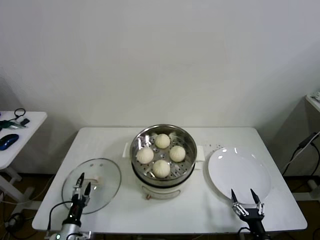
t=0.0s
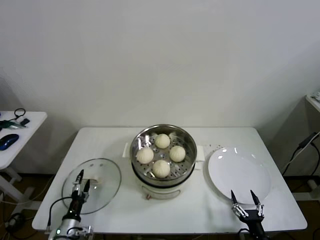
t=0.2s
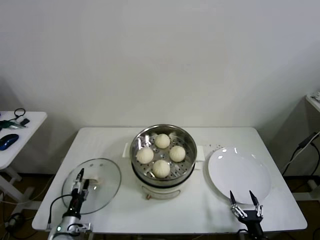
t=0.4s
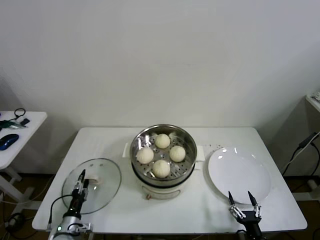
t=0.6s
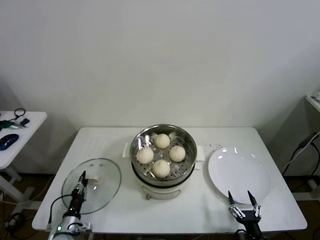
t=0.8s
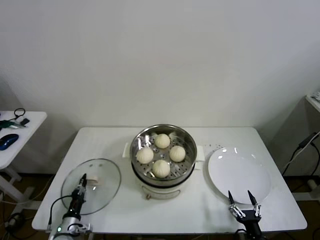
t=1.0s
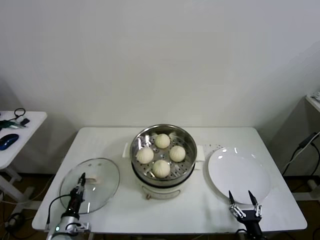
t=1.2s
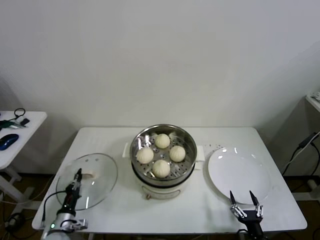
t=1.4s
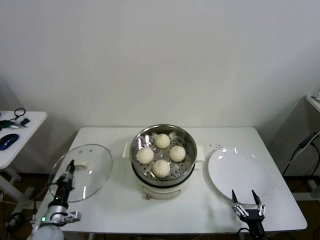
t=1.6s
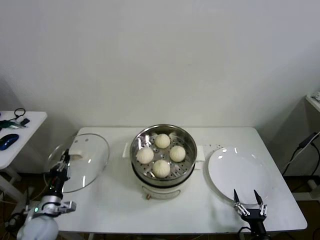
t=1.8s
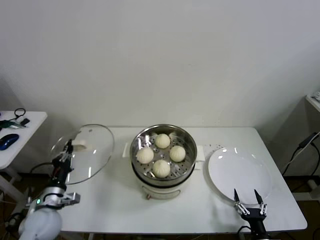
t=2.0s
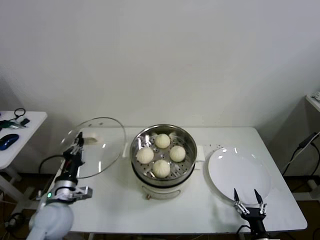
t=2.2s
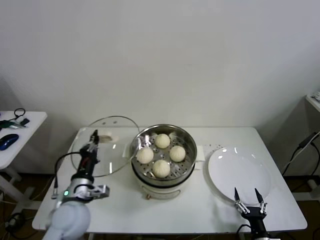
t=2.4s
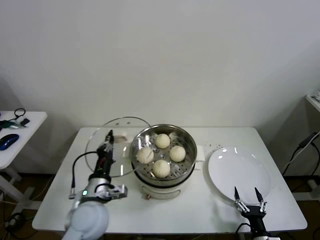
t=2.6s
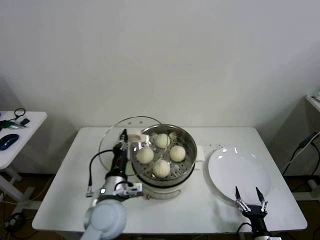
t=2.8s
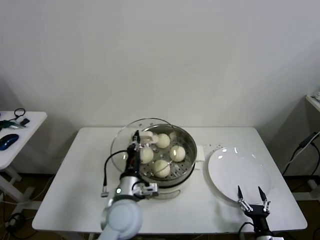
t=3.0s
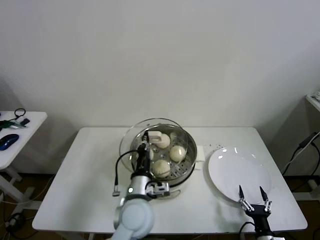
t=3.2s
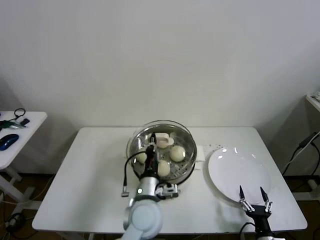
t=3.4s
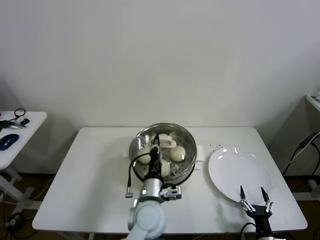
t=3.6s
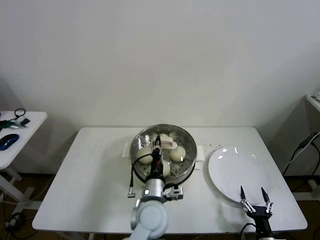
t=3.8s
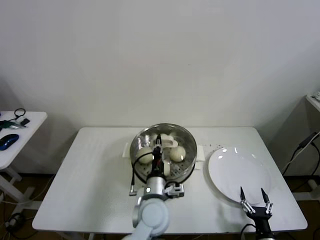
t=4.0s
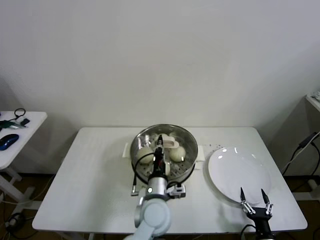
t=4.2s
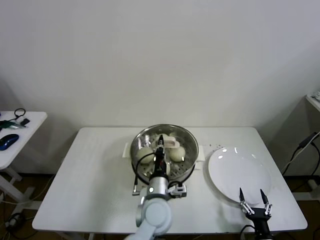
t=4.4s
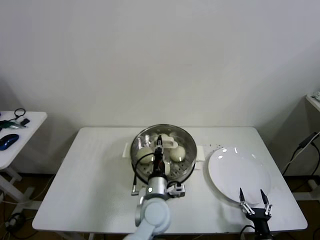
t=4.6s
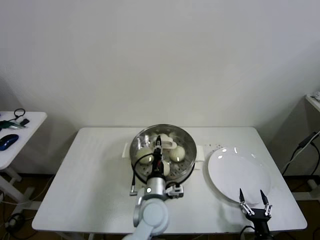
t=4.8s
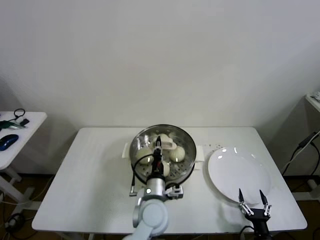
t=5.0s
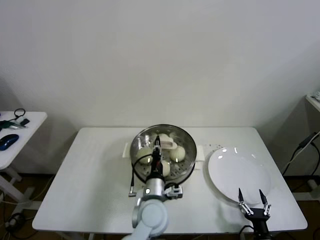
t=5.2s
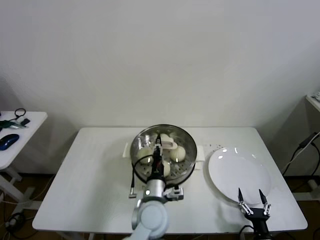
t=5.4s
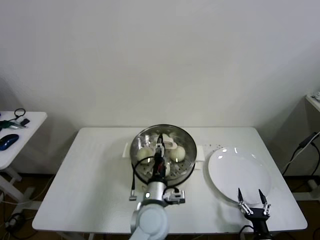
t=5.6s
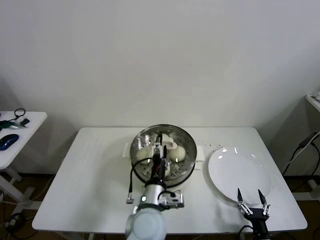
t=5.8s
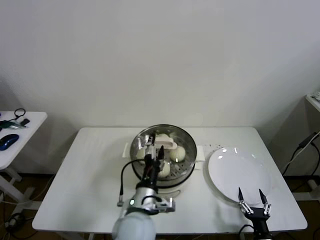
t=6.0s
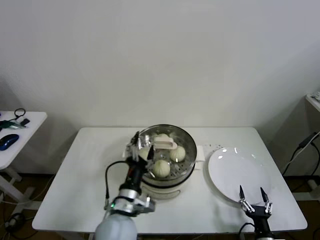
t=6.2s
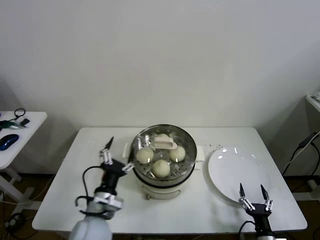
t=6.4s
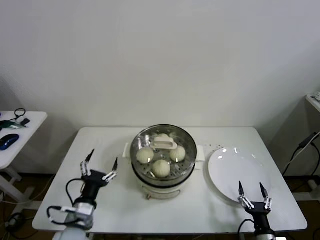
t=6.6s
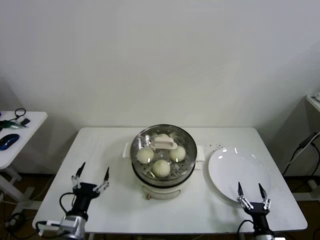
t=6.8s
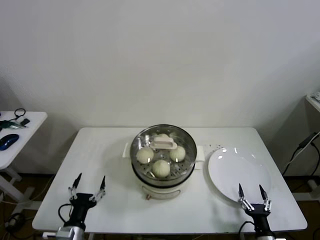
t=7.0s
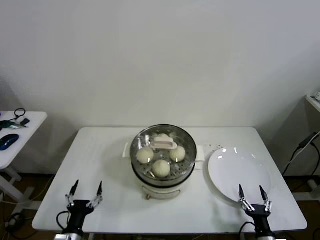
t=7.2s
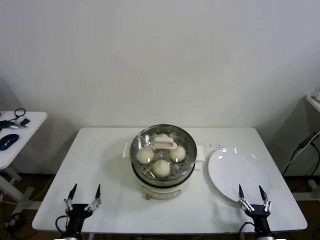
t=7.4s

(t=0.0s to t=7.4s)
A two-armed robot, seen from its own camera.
Step, t=1.2s - t=5.2s: Place the pot lid on the steamer with left gripper.
t=0.0s - t=1.4s: The left gripper closes.
t=1.4s - t=3.0s: The left gripper travels to the right and upward by roughly 35 cm.
t=3.0s - t=4.4s: The left gripper is displaced to the right by approximately 10 cm.
t=4.4s - t=6.0s: The left gripper shifts by some 5 cm, and opens its fingers.
t=6.0s - t=7.4s: The left gripper heads to the left, downward and backward, covering some 30 cm.

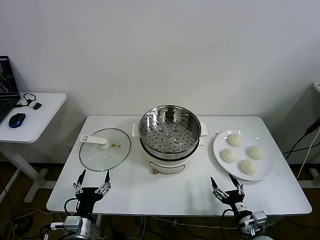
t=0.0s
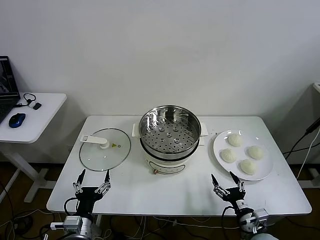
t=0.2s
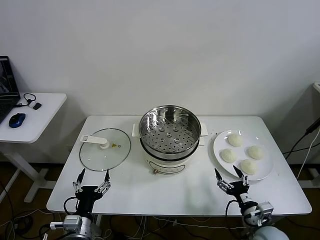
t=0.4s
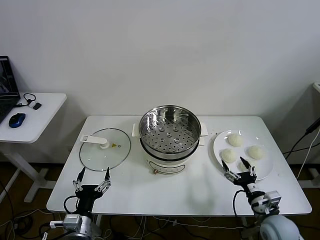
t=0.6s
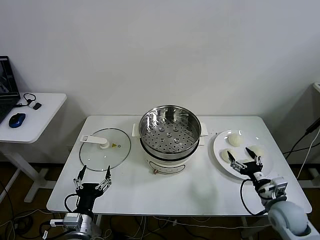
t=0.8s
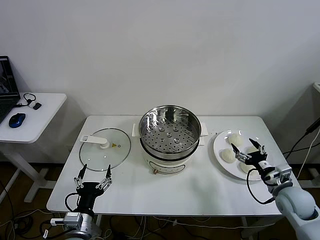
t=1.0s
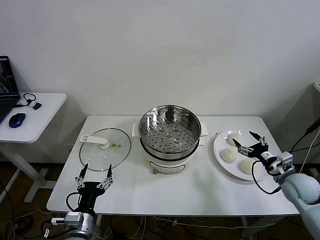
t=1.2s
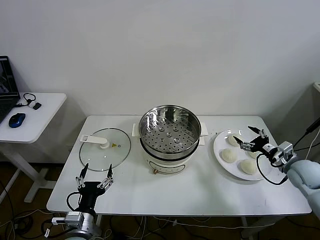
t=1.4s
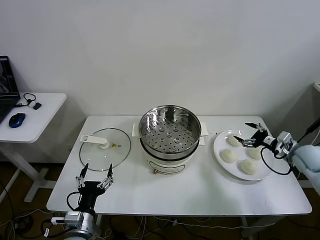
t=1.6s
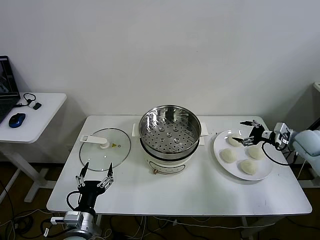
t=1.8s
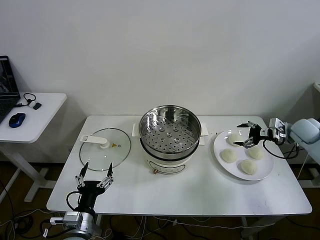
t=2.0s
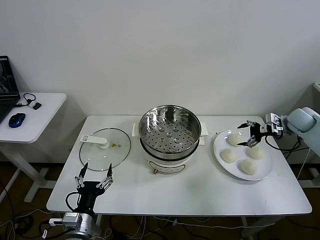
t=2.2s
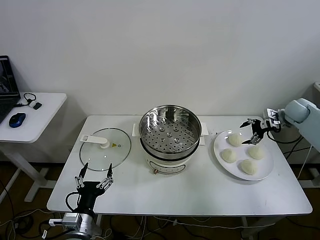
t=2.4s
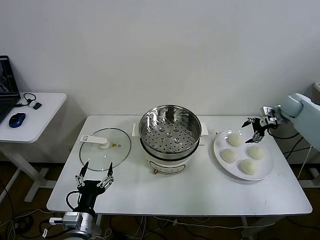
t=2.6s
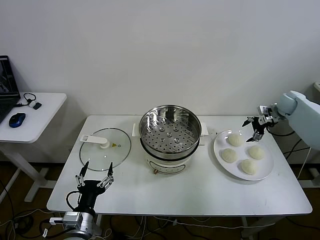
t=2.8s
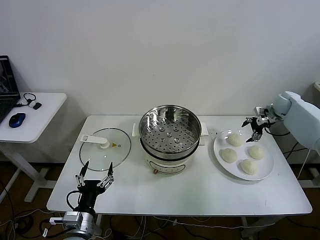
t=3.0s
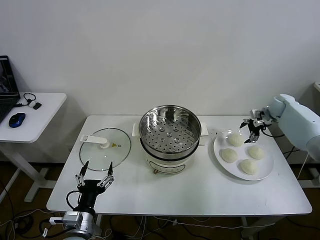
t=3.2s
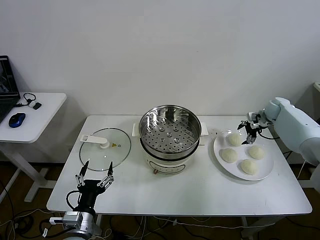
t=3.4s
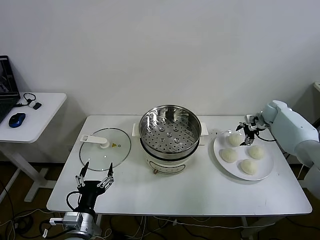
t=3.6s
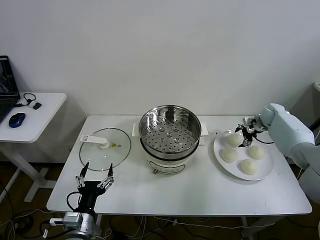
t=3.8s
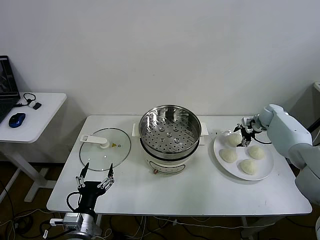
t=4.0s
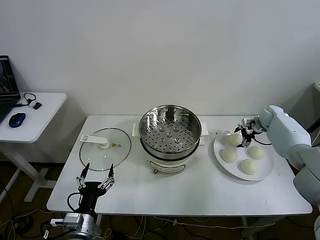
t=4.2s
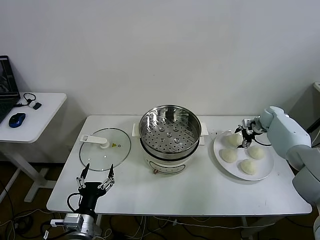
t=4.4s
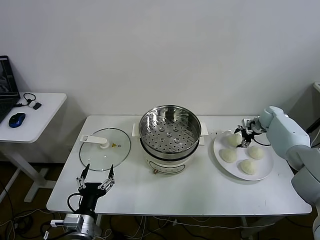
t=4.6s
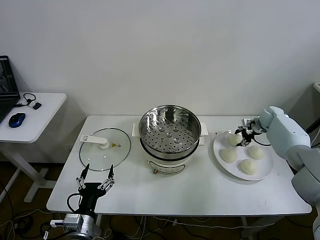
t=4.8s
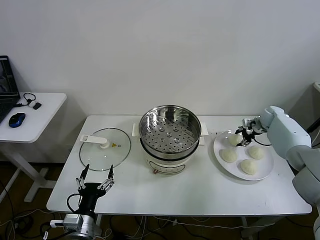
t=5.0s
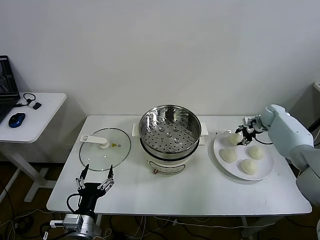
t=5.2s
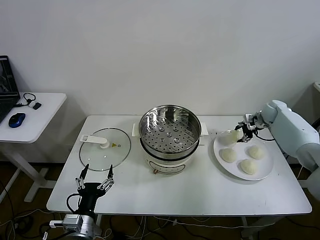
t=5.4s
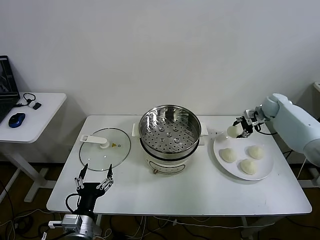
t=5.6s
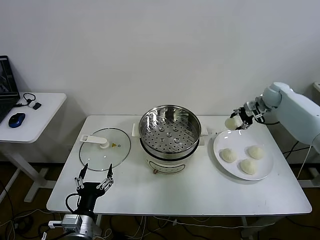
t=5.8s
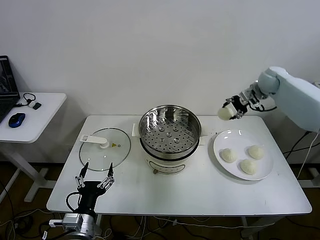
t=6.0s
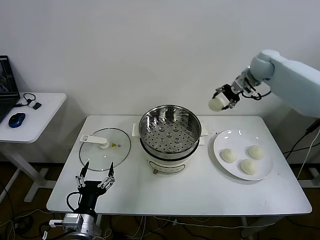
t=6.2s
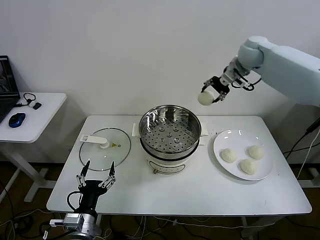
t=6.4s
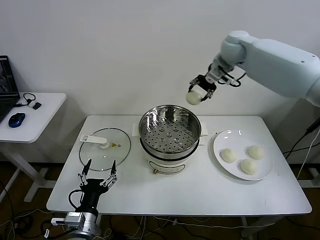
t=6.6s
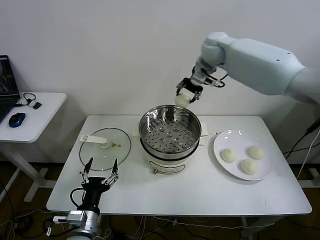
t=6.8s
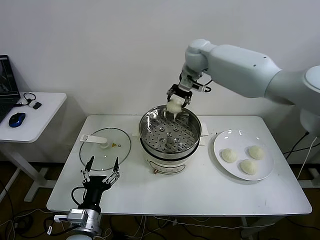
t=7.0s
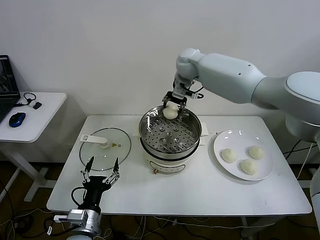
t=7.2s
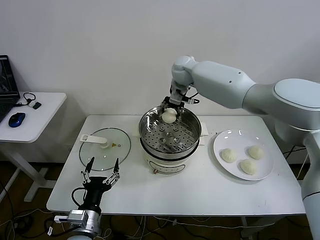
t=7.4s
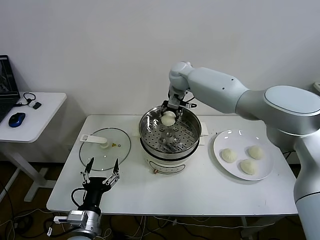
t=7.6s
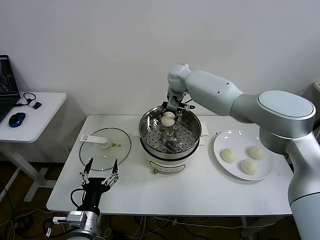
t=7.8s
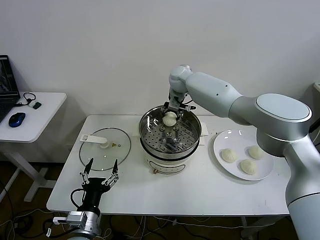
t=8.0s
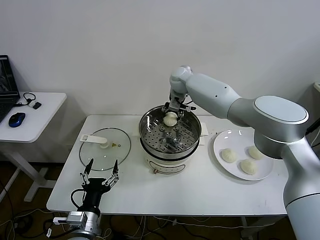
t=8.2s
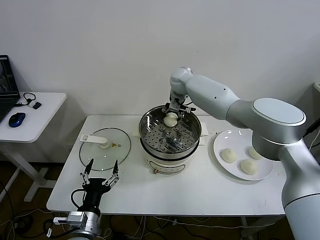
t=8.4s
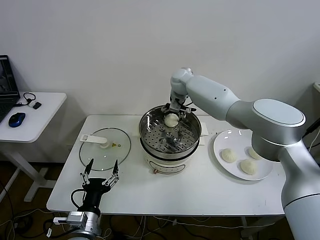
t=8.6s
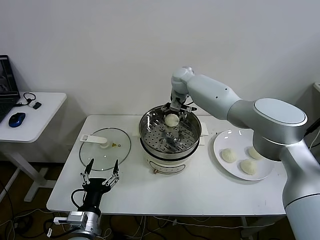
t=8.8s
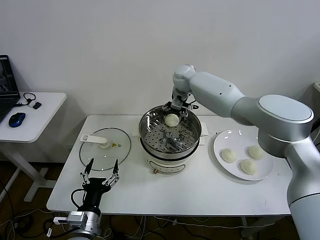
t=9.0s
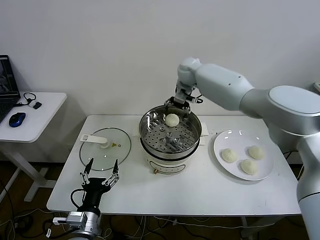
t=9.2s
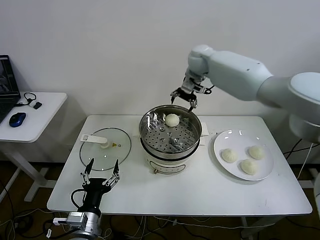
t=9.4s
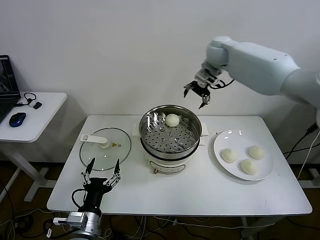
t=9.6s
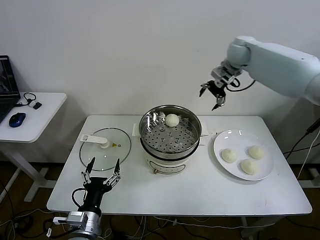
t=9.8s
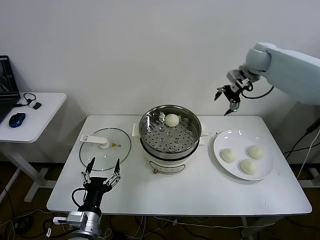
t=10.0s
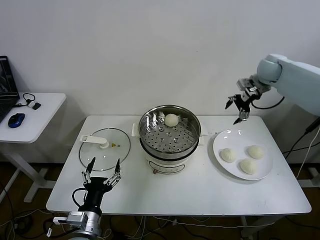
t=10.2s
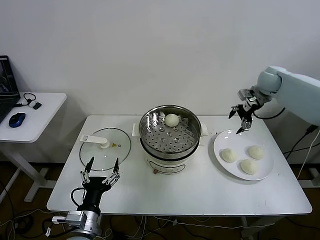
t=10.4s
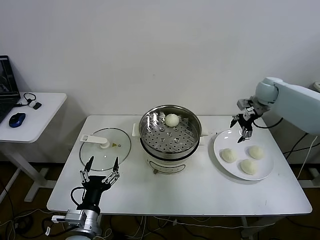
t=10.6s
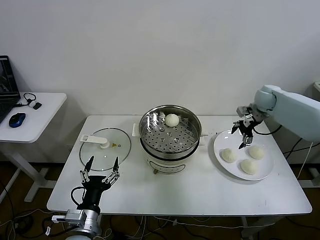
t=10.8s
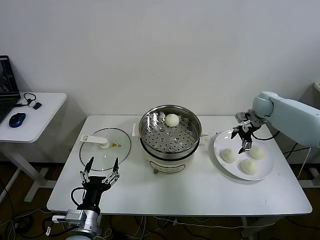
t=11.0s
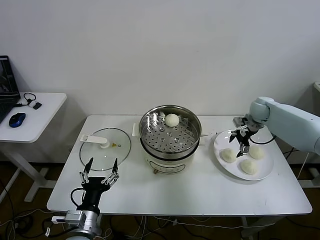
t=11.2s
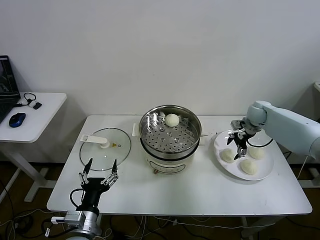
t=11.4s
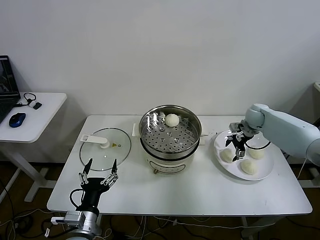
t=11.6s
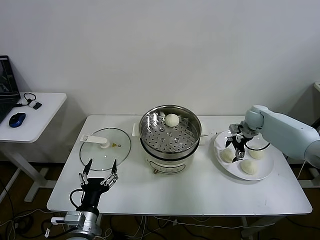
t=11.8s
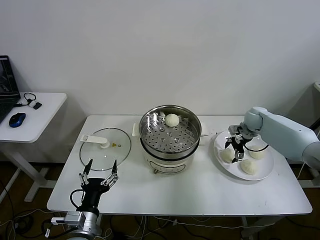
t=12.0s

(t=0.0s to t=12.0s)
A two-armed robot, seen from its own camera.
Step, t=0.0s - t=4.6s: Grasp the baozi in the plate with right gripper.
Step, t=4.8s - t=9.0s: Place the baozi on the steamer with right gripper.
t=1.6s - t=3.0s: The right gripper goes about 20 cm forward.
t=3.0s - t=4.4s: The right gripper moves downward, about 5 cm.
t=4.4s - t=6.0s: The right gripper moves upward and to the left, roughly 25 cm, and closes up.
t=6.0s - t=7.6s: The right gripper travels to the left by roughly 30 cm.
t=7.6s - t=9.0s: The right gripper opens up.
t=9.0s - t=10.4s: The right gripper moves to the right, some 30 cm.
t=10.4s - t=12.0s: The right gripper travels downward by roughly 15 cm.

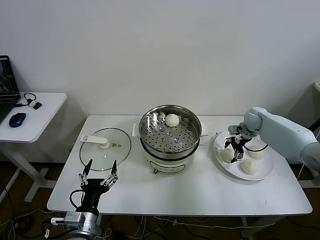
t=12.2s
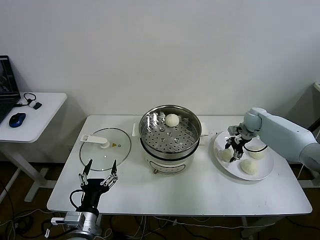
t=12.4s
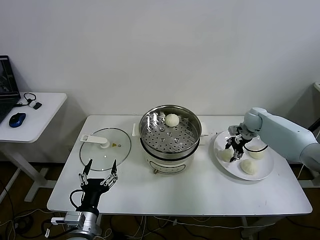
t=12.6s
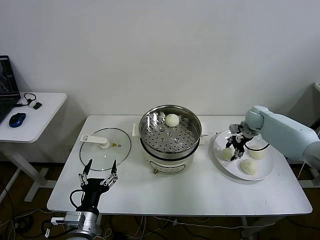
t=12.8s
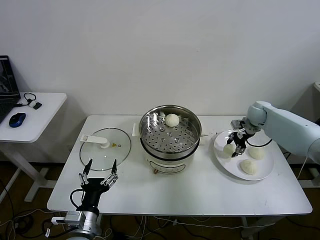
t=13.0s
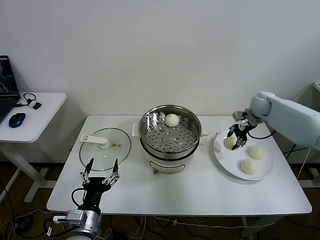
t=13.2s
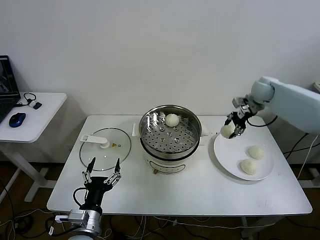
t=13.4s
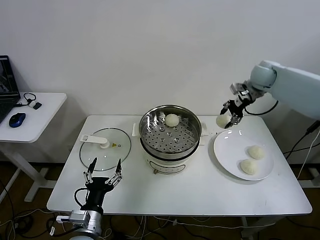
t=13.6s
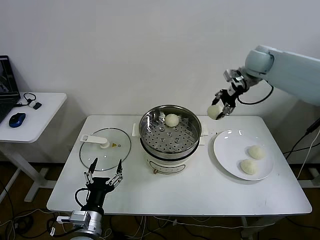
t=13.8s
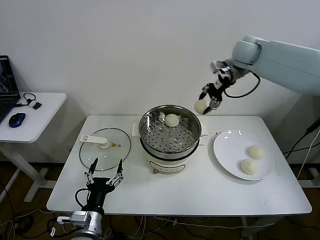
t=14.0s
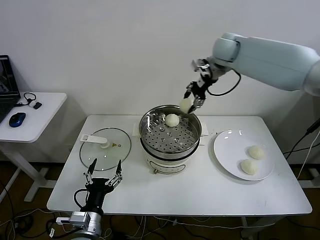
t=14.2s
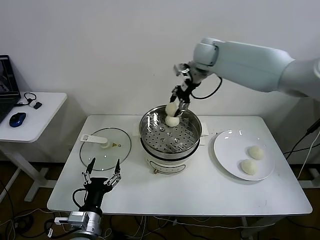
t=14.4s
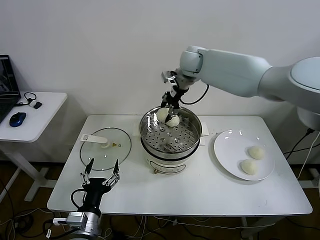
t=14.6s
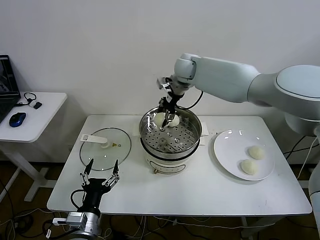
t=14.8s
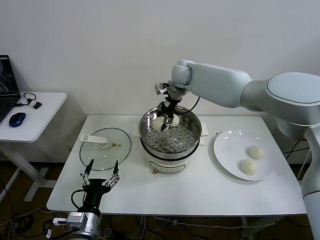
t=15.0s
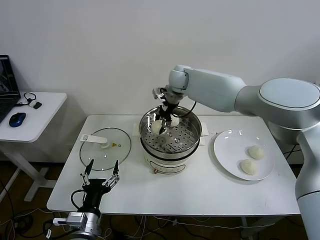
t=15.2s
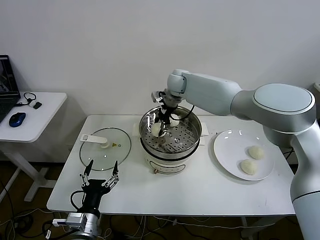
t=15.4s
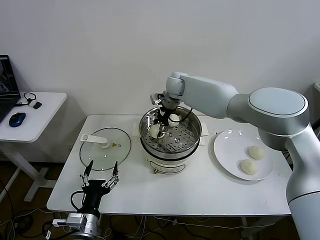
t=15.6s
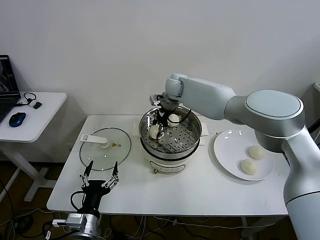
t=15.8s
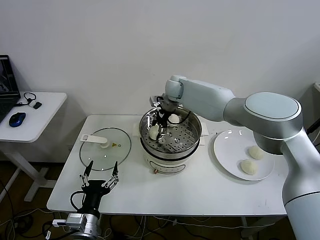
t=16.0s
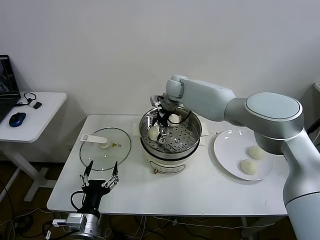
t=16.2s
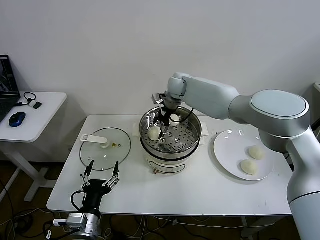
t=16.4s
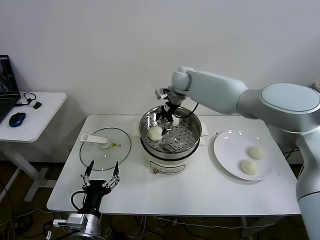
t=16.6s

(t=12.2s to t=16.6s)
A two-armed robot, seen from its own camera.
Step, t=12.8s - t=16.2s: Place the baozi on the steamer with right gripper.
t=12.2s - t=13.6s: The right gripper moves upward, about 20 cm, and closes its fingers.
t=13.6s - t=15.2s: The right gripper is displaced to the left by approximately 30 cm.
t=15.2s - t=16.6s: The right gripper opens up.
